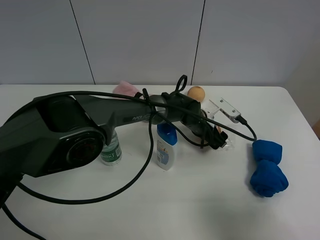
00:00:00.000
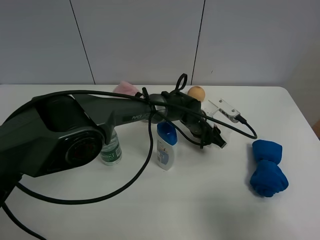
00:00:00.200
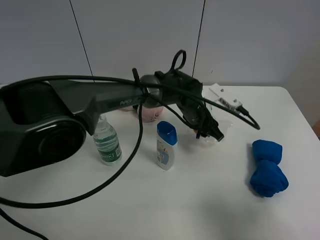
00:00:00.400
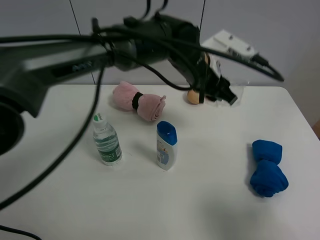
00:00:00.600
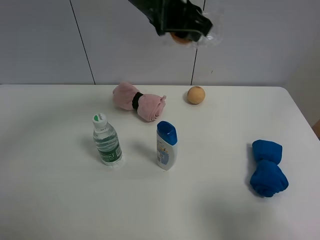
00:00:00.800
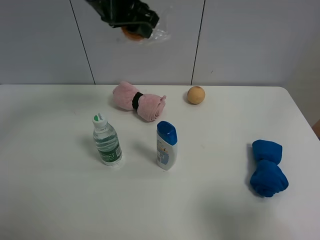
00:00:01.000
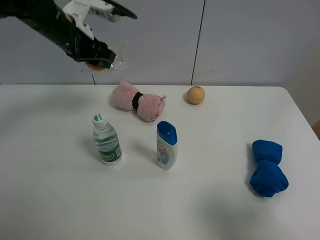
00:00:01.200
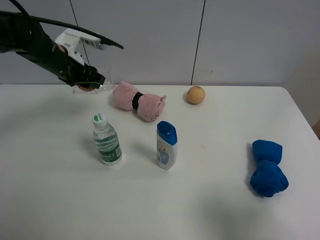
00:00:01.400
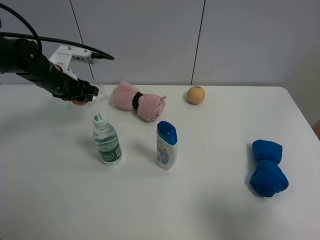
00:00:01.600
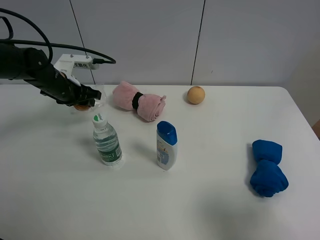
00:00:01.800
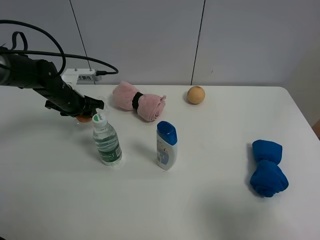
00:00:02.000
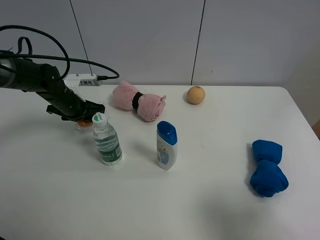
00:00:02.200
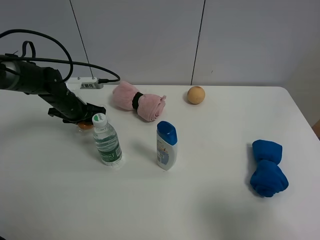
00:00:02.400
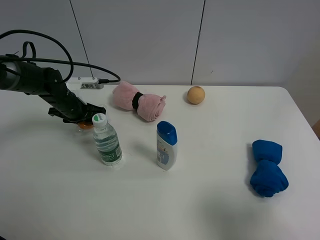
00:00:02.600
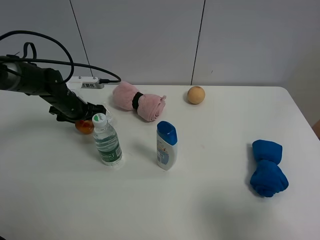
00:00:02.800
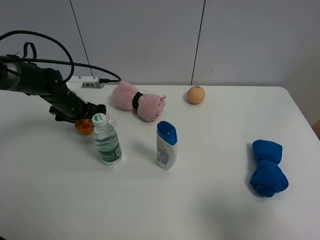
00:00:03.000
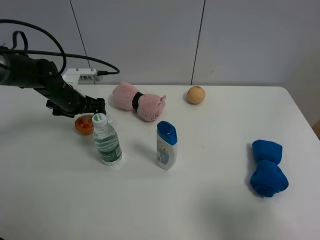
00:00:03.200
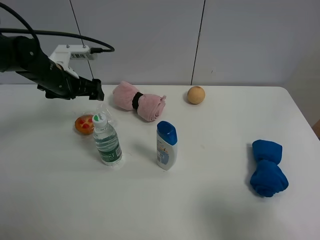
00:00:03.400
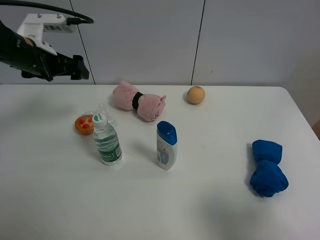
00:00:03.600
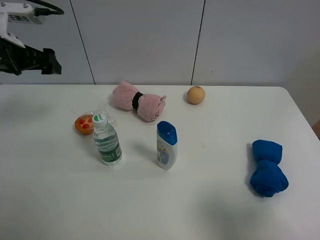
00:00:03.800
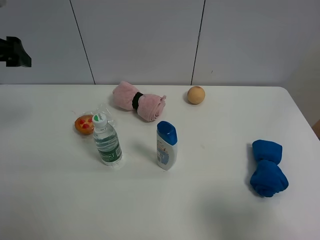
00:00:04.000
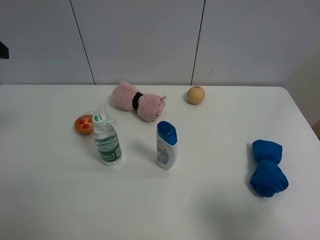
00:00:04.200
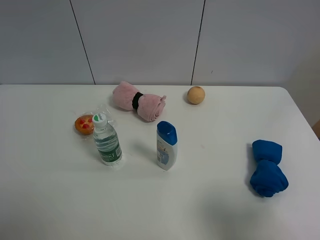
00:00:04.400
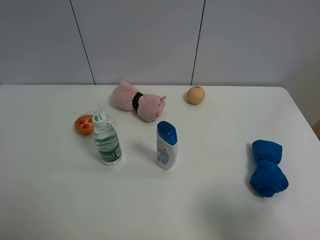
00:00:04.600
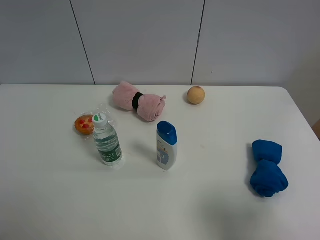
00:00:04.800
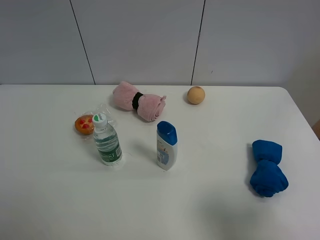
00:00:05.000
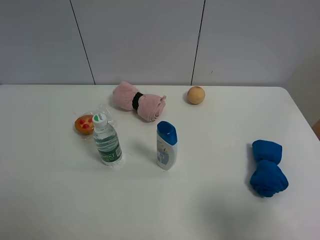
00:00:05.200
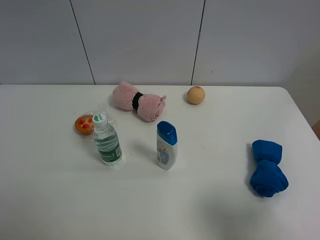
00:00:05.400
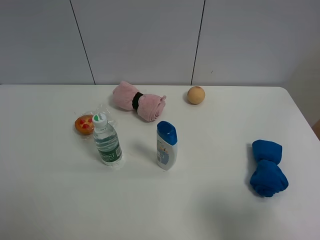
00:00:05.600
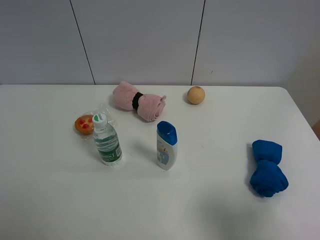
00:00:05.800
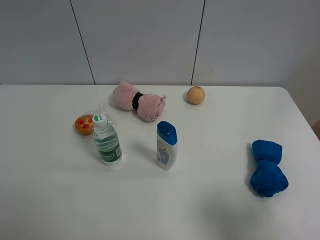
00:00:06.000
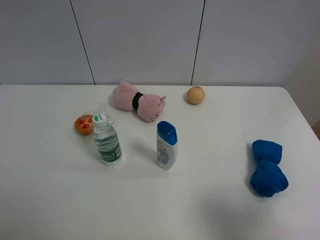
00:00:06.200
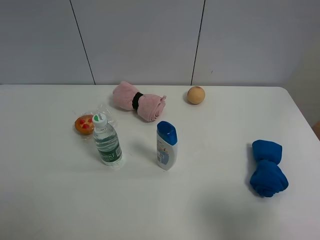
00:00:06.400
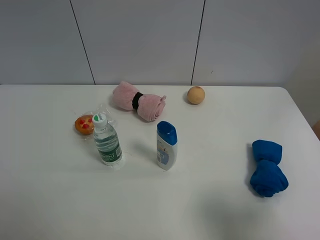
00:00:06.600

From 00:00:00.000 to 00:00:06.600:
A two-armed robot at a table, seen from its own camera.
Task of the whole recording: the gripper move the object.
Step, from 00:00:00.200 to 00:00:03.200: Place the egg tart on the table with the left gripper.
From 00:00:00.000 to 00:00:01.600: The left gripper goes roughly 35 cm to the left, and closes up.
From 00:00:01.600 to 00:00:03.200: The left gripper opens.
From 00:00:03.200 to 00:00:05.000: The left gripper heads backward and upward, covering some 40 cm.

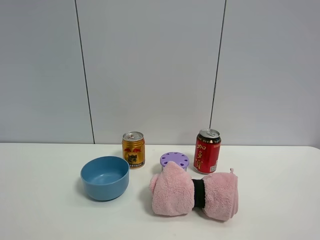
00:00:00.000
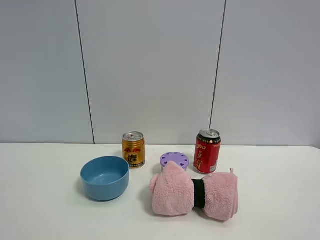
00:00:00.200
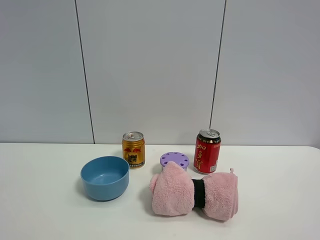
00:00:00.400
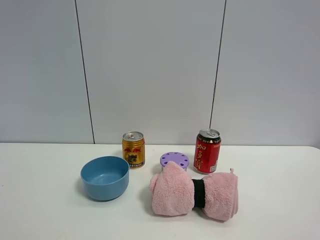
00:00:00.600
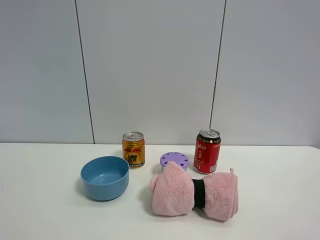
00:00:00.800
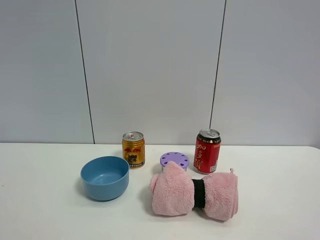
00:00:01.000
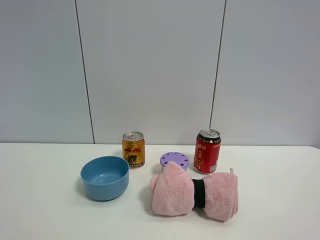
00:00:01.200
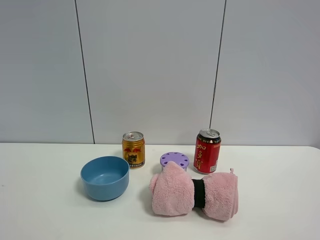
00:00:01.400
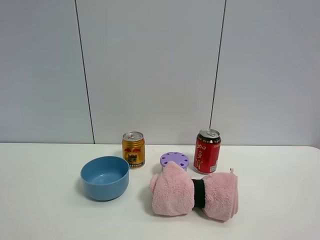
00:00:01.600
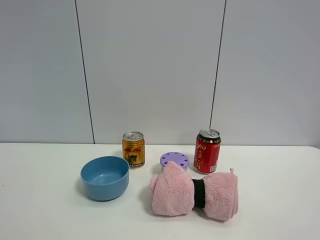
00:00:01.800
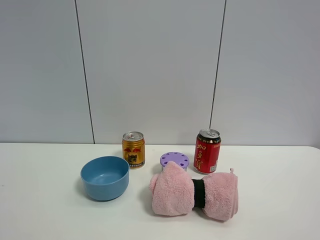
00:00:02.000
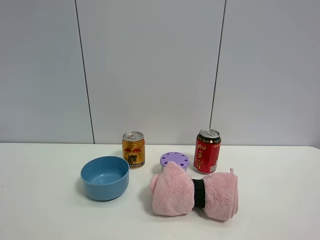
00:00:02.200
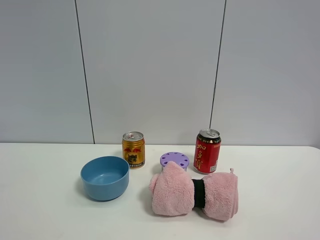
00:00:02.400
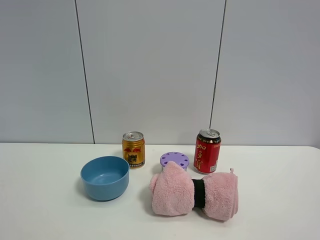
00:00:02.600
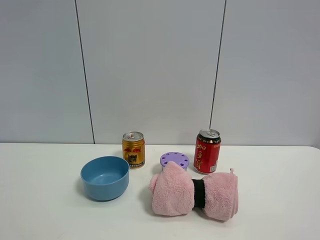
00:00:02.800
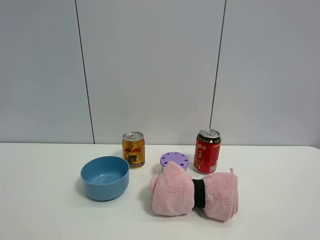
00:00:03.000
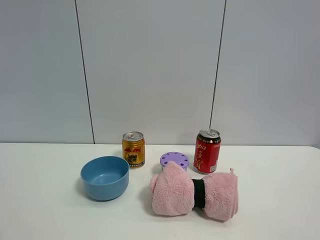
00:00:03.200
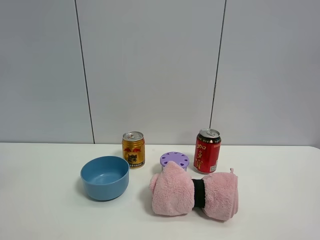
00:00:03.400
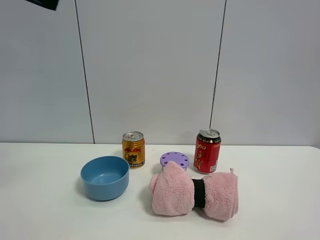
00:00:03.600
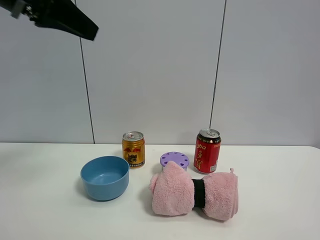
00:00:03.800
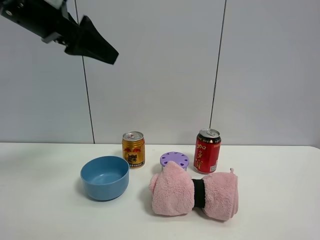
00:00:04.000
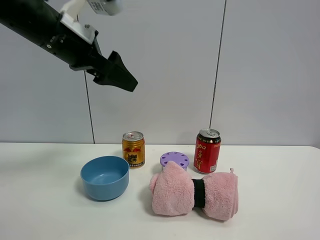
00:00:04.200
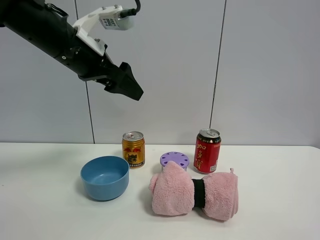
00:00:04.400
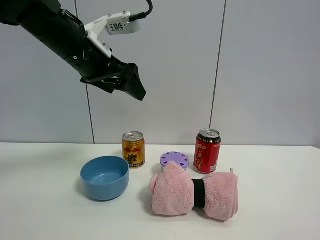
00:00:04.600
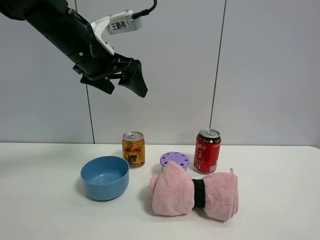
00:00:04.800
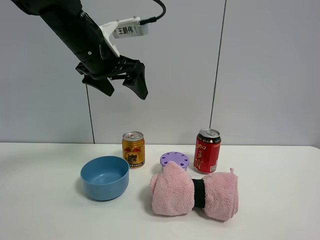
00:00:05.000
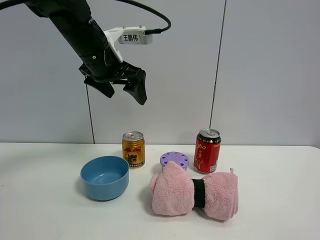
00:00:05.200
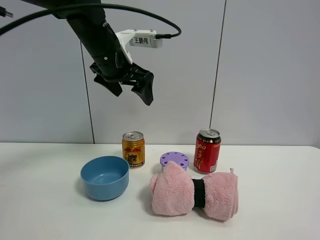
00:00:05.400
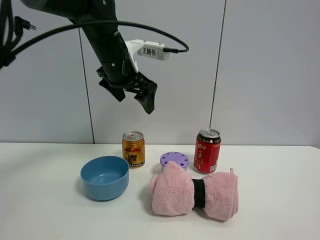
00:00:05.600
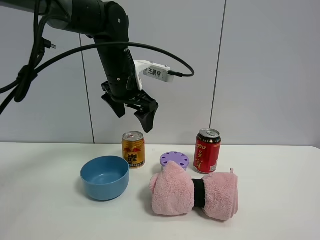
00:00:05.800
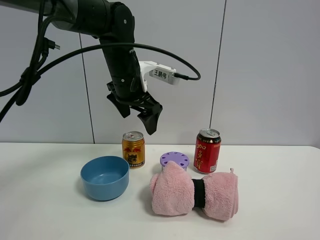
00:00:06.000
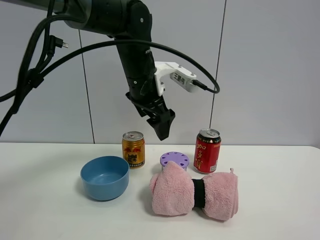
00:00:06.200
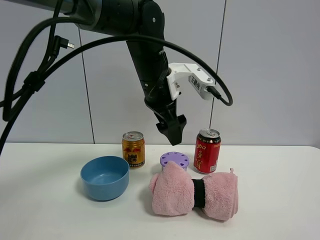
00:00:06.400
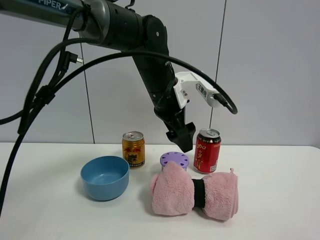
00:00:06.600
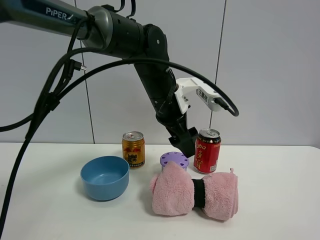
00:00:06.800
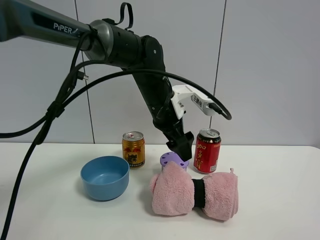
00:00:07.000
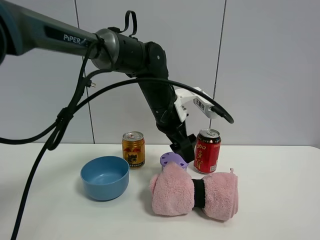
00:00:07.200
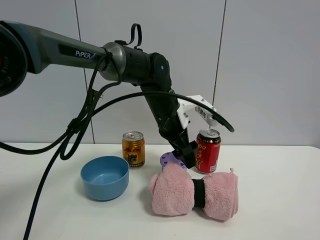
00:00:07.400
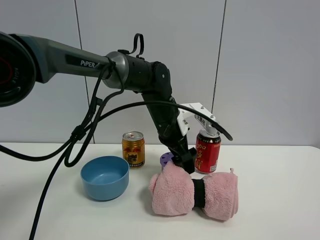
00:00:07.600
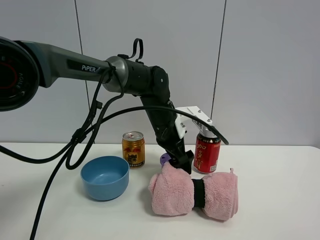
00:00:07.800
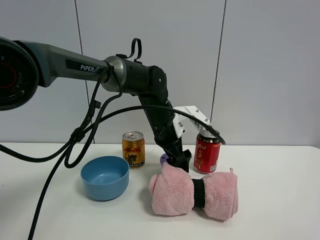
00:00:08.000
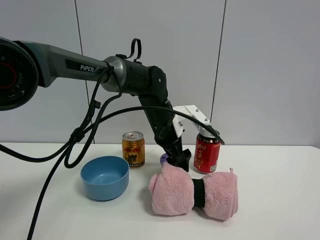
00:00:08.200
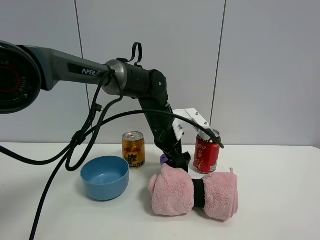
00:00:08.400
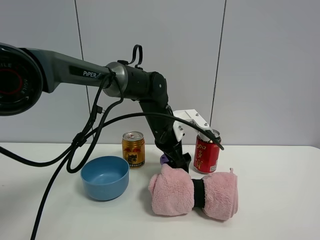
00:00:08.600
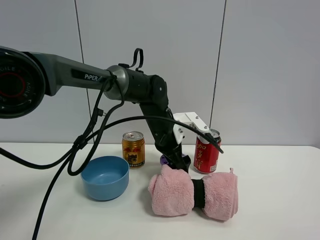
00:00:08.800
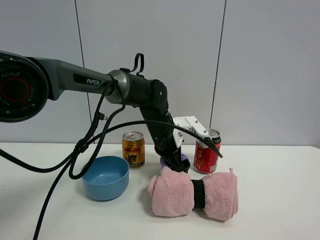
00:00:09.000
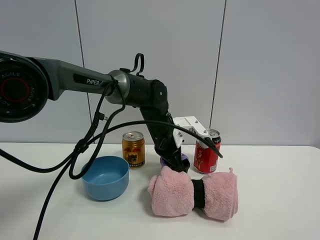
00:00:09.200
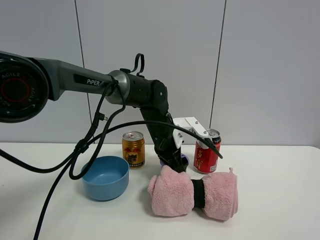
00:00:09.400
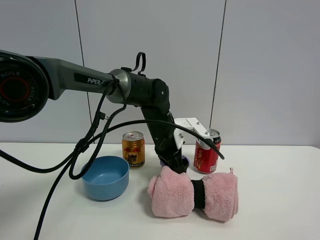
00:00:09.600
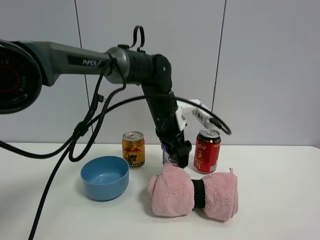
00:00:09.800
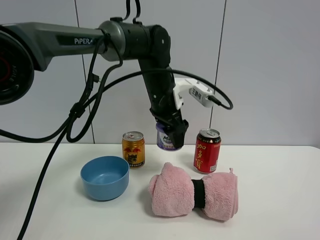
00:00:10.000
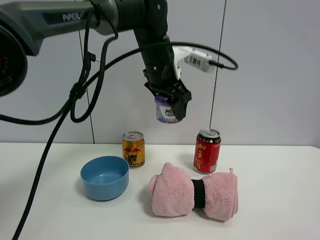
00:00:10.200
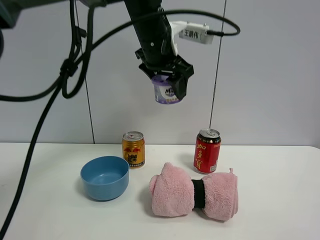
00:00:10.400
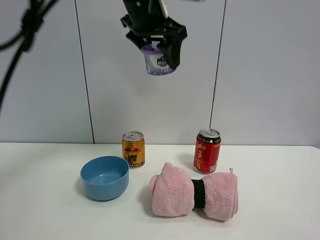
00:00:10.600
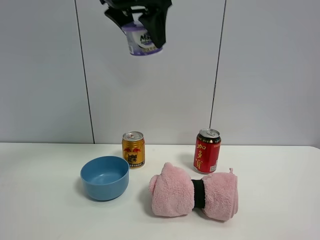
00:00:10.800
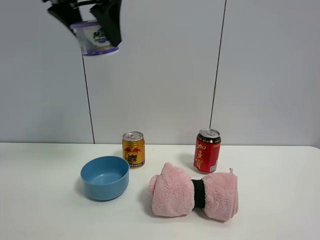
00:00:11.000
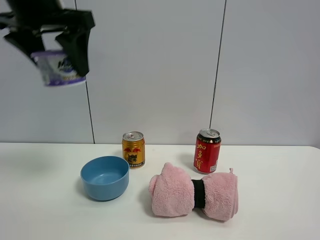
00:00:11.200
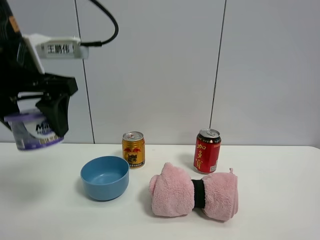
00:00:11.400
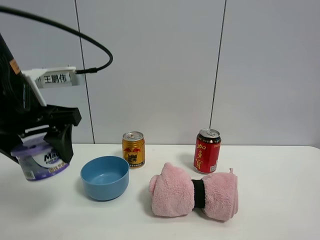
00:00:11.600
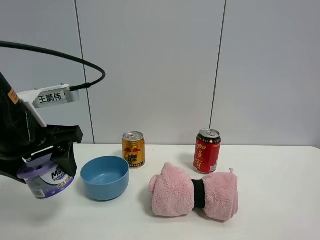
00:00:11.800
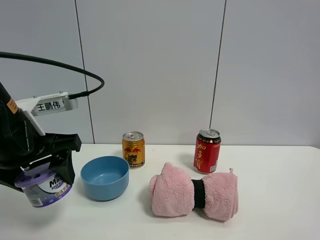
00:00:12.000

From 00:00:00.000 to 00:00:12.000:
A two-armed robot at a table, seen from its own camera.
Task of the whole recording: the gripper move the object.
Step, from 00:00:00.000 to 00:00:09.400: Grasp the Incense box with the left gripper.
From 00:00:00.000 to 00:00:01.600: Neither gripper changes place.
From 00:00:03.000 to 00:00:04.400: The left gripper shifts some 35 cm forward, to the right and downward.
From 00:00:04.400 to 00:00:06.000: The left gripper travels to the right, forward and downward by approximately 10 cm.
From 00:00:06.000 to 00:00:07.600: The left gripper travels downward and to the right by some 10 cm.
From 00:00:07.600 to 00:00:09.000: The grippers stay close to where they were, moving slightly.
From 00:00:09.000 to 00:00:10.400: The left gripper goes about 20 cm upward, and closes up.
From 00:00:10.400 to 00:00:12.000: The left gripper heads to the left, backward and downward, covering approximately 30 cm.

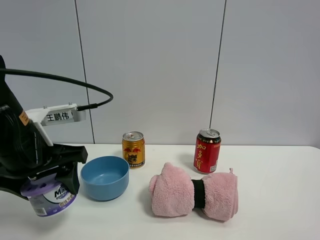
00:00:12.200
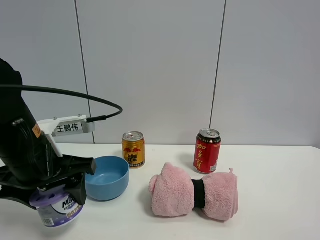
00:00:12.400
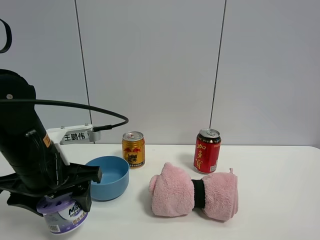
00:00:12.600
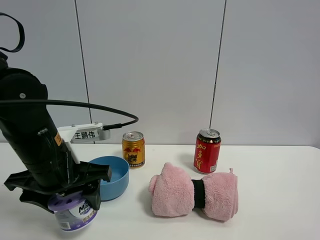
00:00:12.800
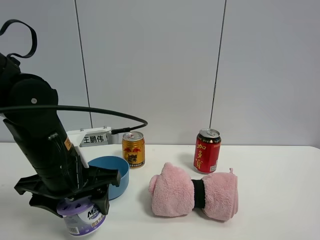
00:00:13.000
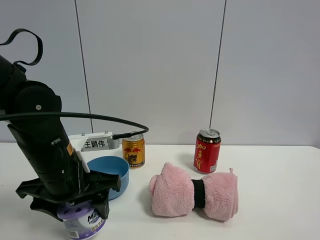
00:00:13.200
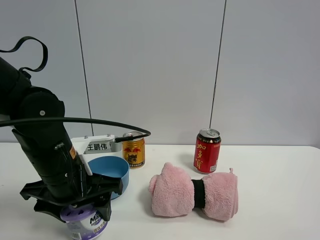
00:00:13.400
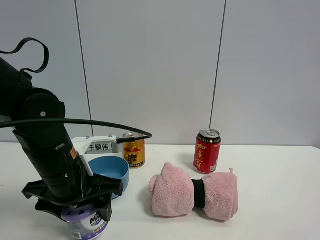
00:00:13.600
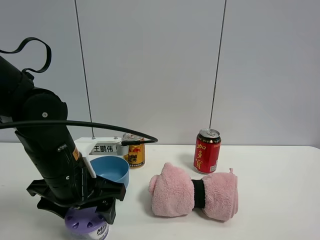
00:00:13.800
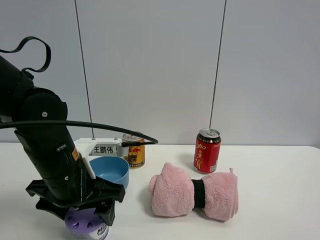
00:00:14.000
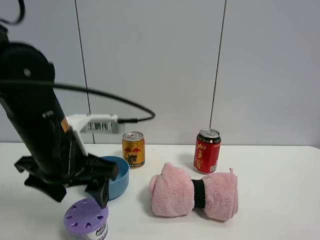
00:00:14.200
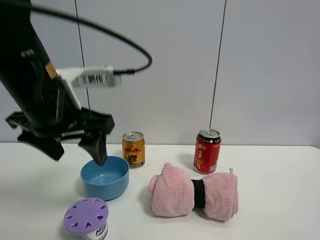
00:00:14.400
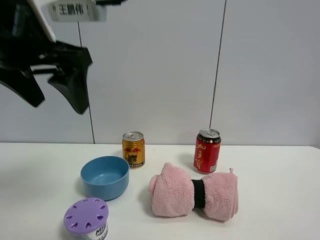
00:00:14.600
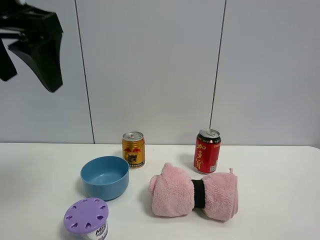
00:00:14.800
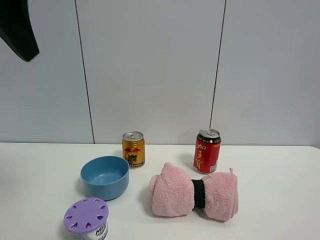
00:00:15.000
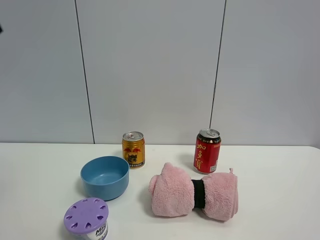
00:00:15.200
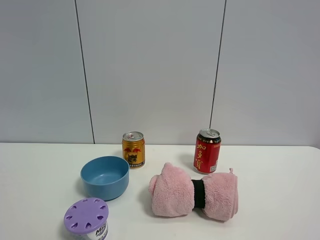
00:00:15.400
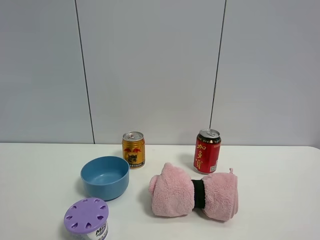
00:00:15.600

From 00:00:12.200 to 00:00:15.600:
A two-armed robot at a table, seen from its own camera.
Task of the whole recording: the gripper move the object.
Step, from 00:00:12.200 to 00:00:14.200: Place the Incense box on the table with the left gripper.
From 00:00:12.200 to 00:00:13.800: The left gripper moves downward and to the right, some 5 cm.
From 00:00:13.800 to 00:00:15.600: The left gripper moves upward, backward and to the left, about 35 cm.
